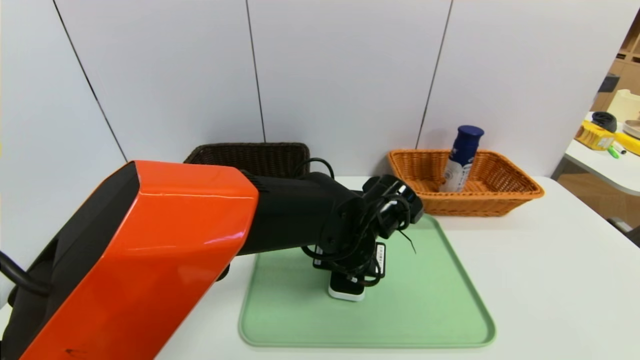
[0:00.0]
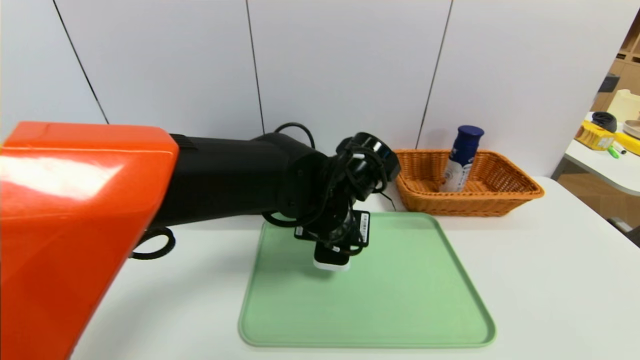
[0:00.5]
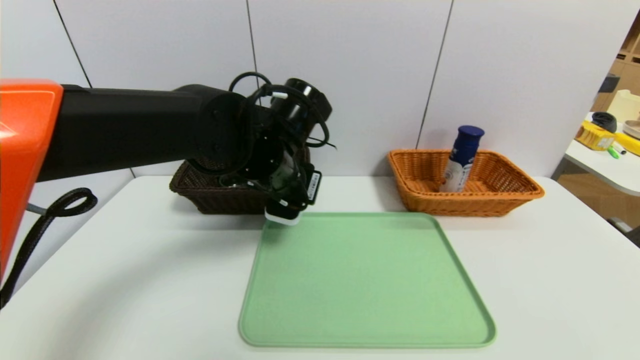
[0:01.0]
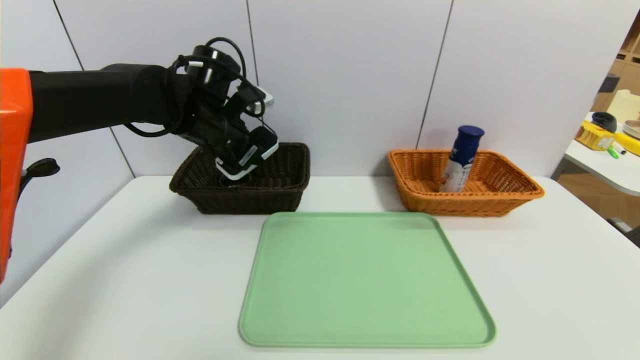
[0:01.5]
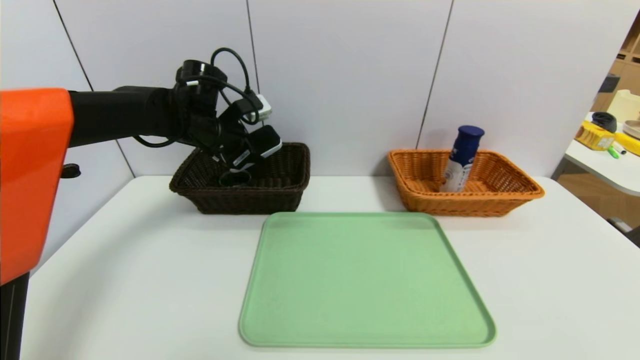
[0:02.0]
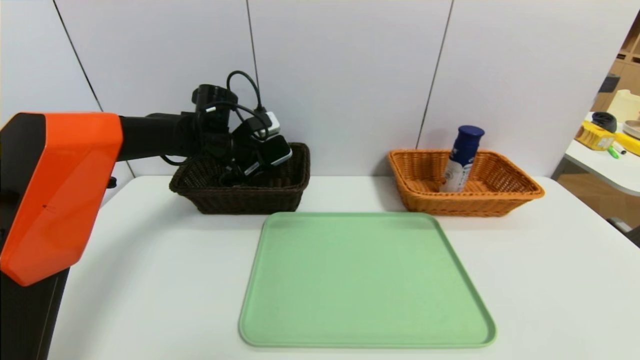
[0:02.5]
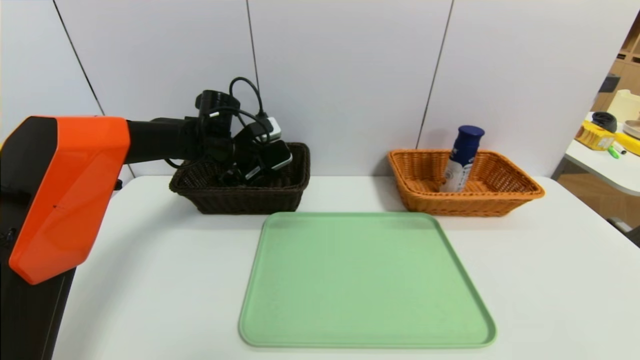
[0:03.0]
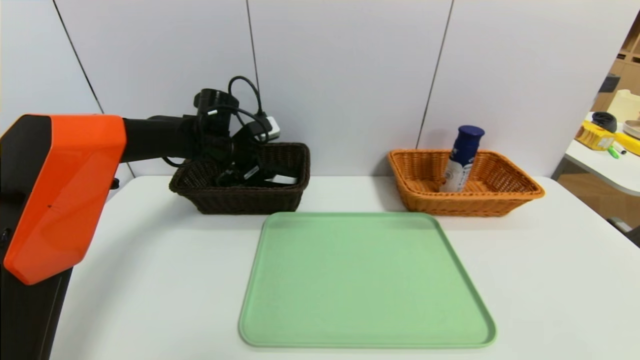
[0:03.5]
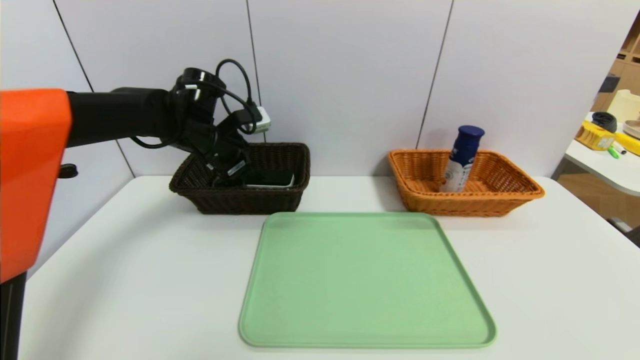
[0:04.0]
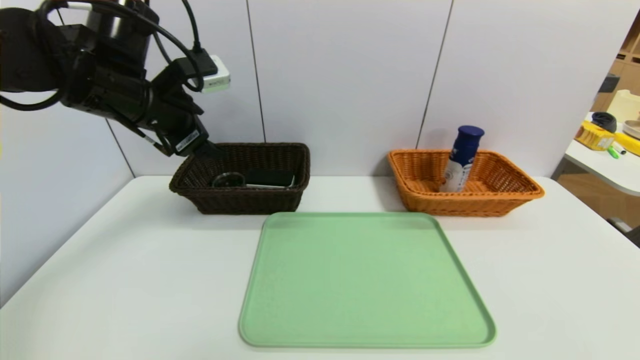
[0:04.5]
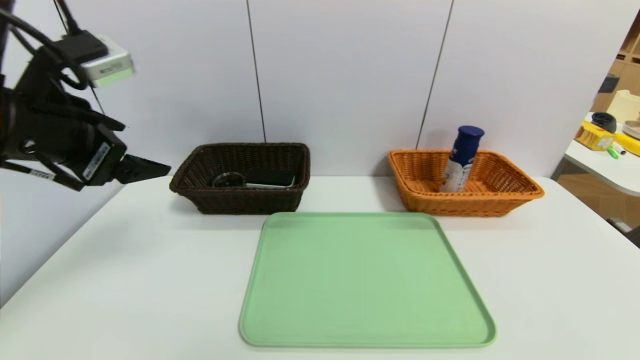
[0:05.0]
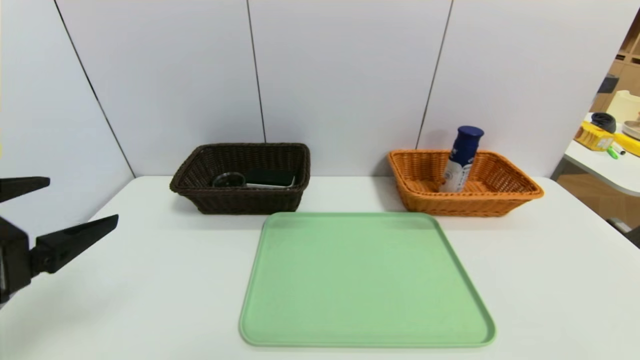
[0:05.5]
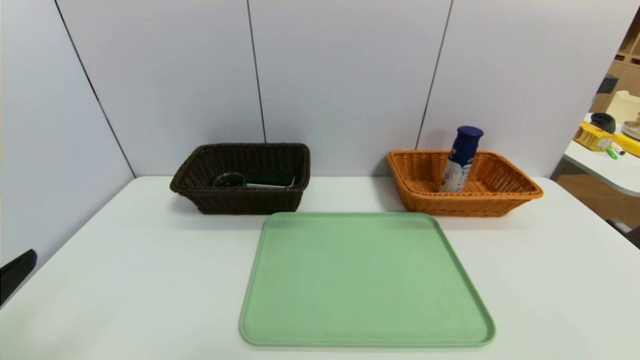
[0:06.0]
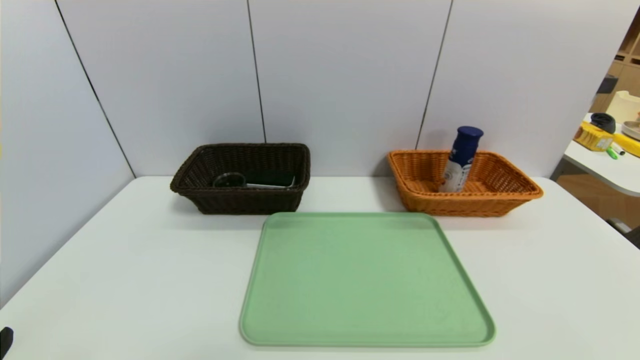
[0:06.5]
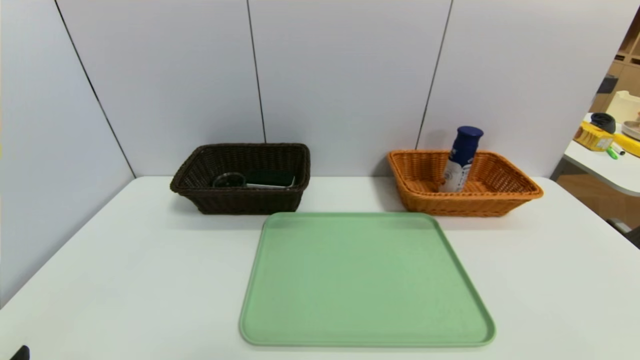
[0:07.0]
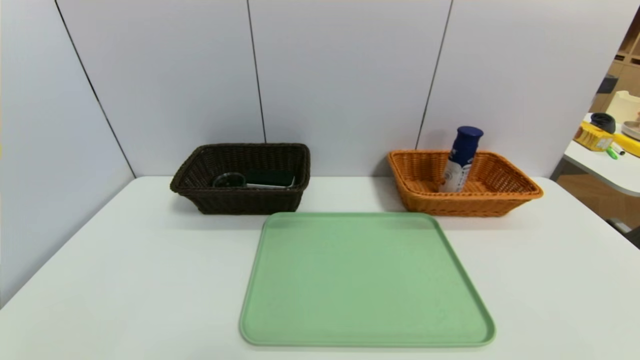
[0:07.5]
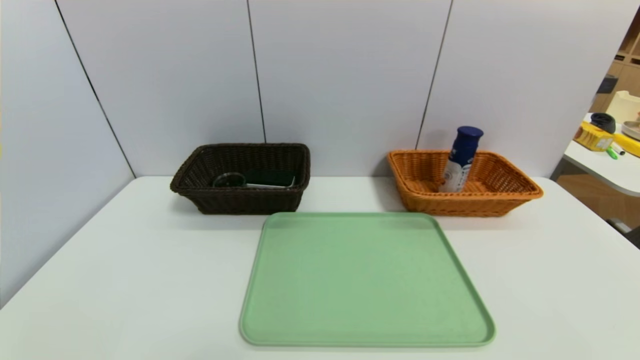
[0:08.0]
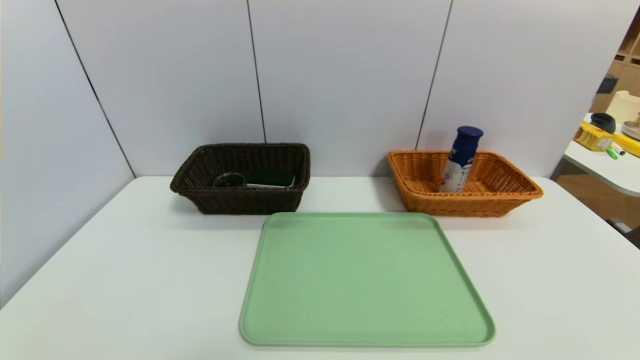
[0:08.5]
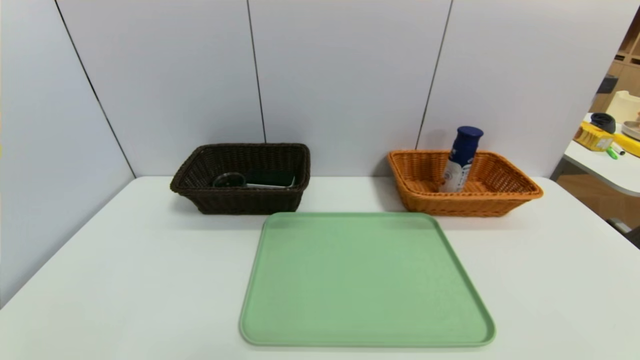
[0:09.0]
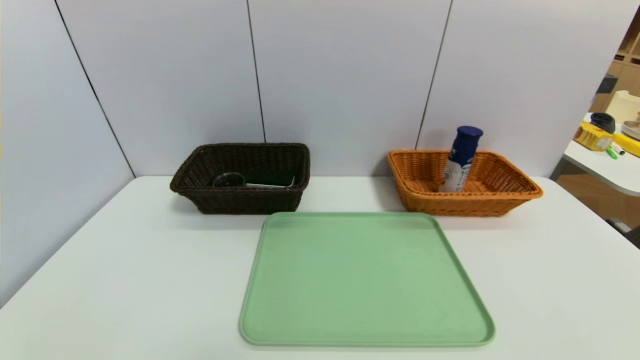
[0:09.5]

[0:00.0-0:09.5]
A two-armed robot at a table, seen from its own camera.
Task of the whole recording: place the food in the right basket with the right gripper, and place the non food items in the left basket with the left gripper.
Step, 0:00.0 to 0:03.5: Grasp the white eraser and put it in the left basket.
0:00.0 to 0:02.0: The left gripper is displaced to the left, forward and upward by some 30 cm.
0:02.0 to 0:04.0: The left gripper opens up.
0:04.0 to 0:05.5: The left gripper heads backward, covering some 30 cm.
0:05.5 to 0:07.5: The left gripper shifts approximately 20 cm downward and backward.

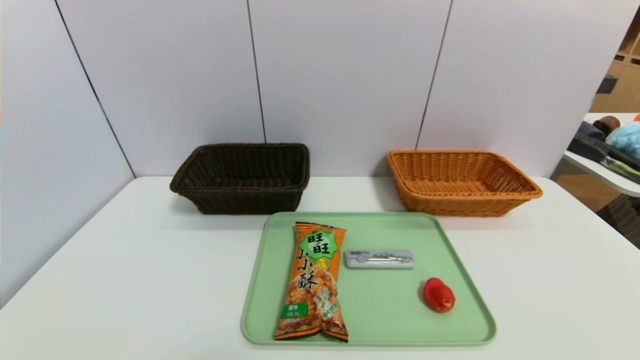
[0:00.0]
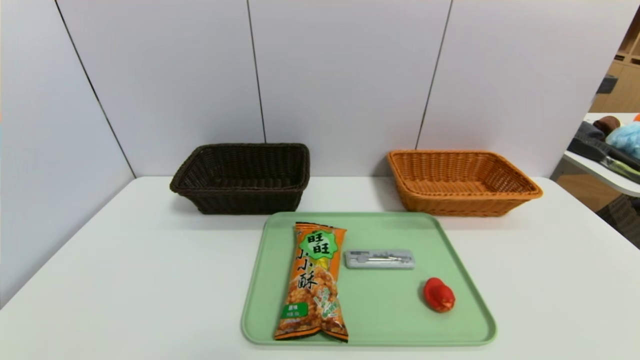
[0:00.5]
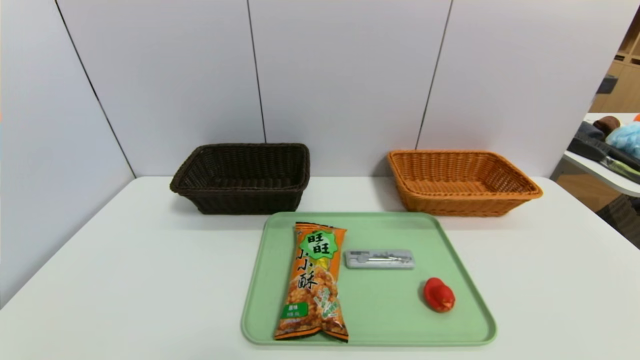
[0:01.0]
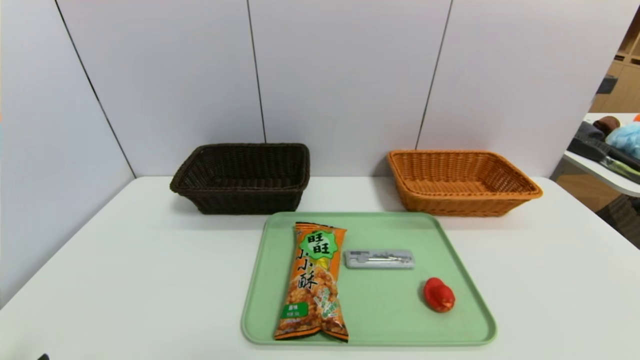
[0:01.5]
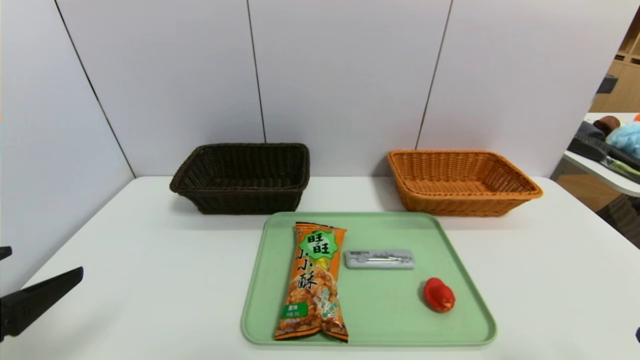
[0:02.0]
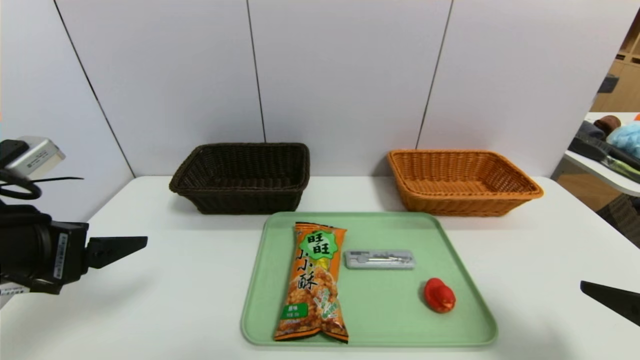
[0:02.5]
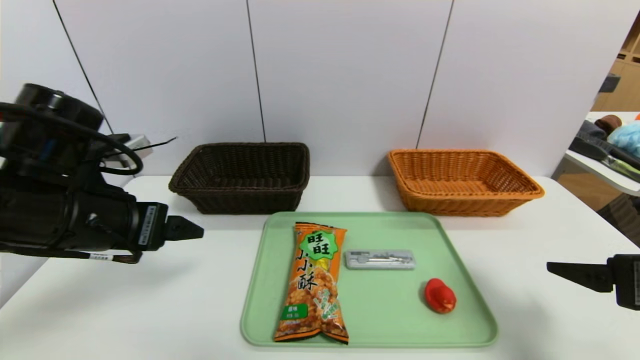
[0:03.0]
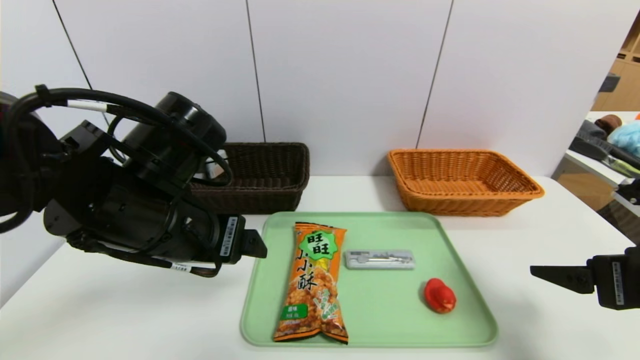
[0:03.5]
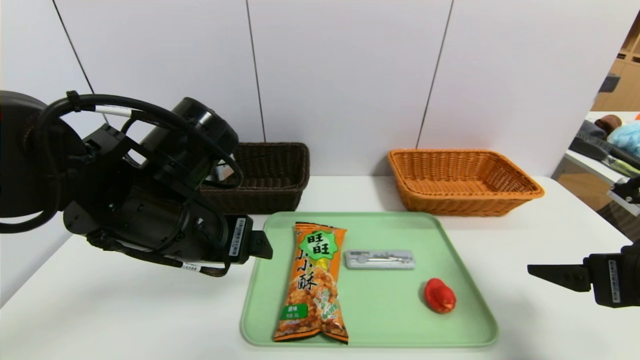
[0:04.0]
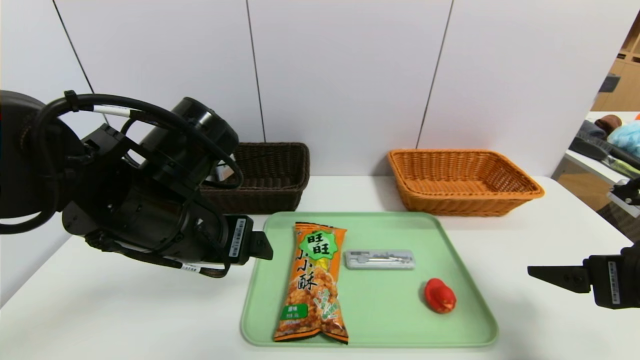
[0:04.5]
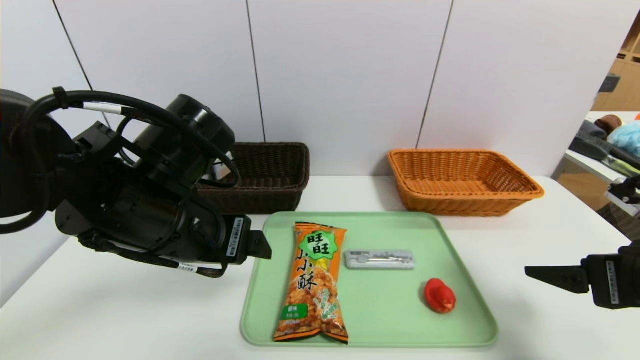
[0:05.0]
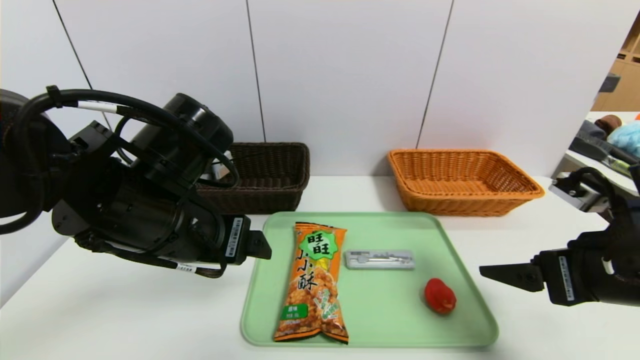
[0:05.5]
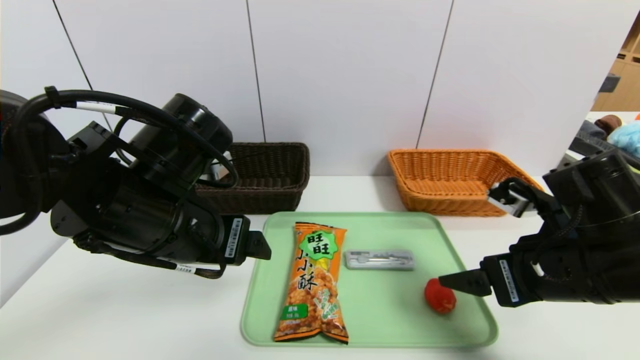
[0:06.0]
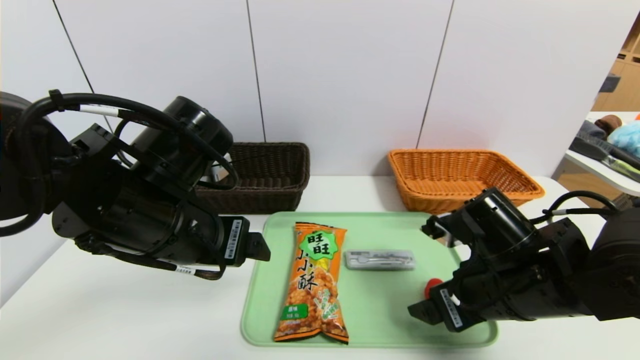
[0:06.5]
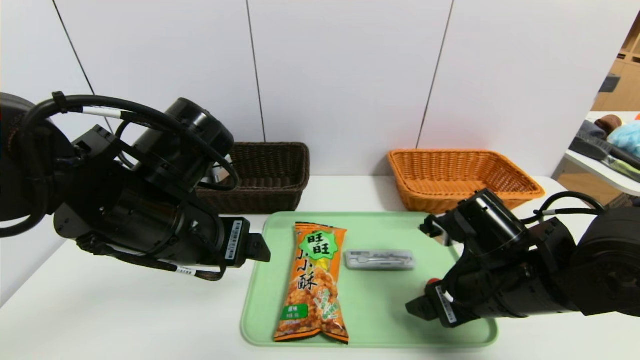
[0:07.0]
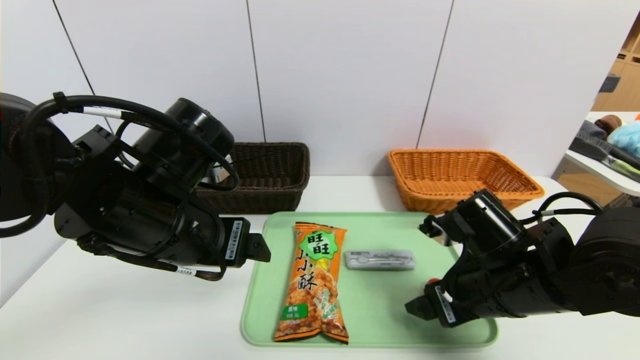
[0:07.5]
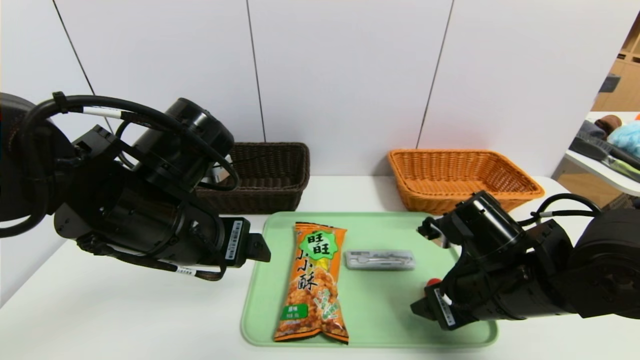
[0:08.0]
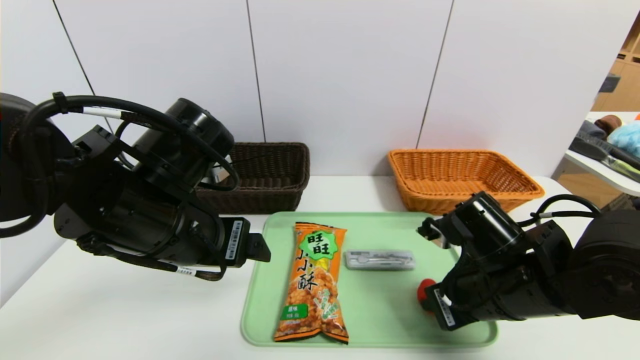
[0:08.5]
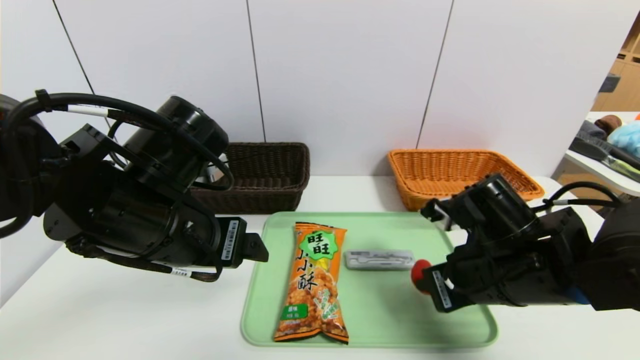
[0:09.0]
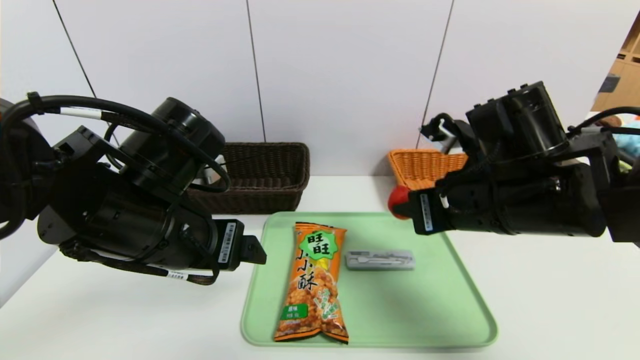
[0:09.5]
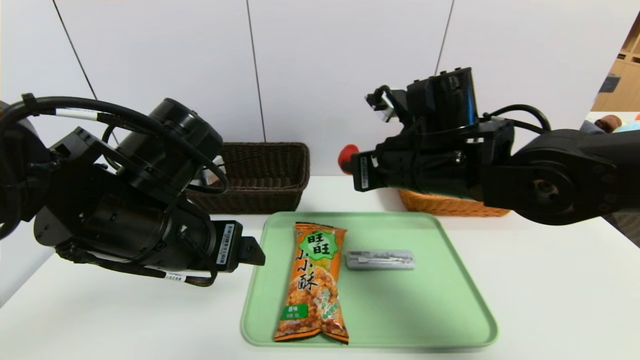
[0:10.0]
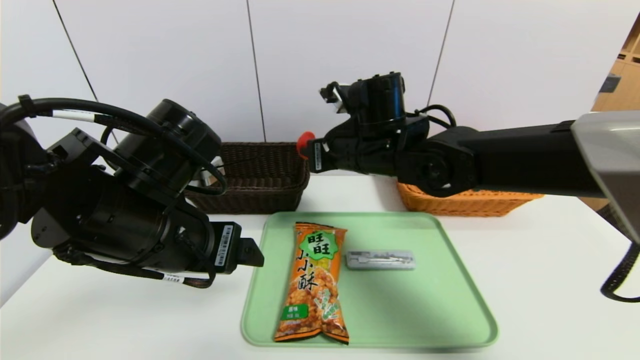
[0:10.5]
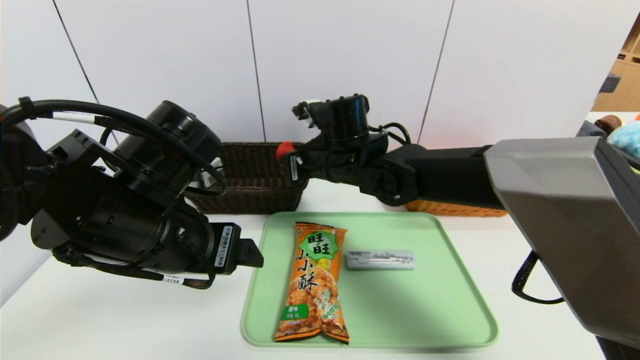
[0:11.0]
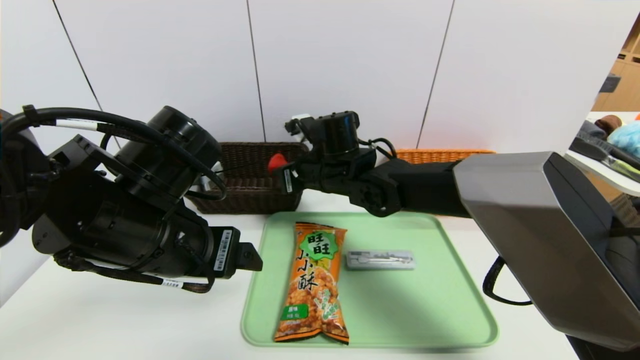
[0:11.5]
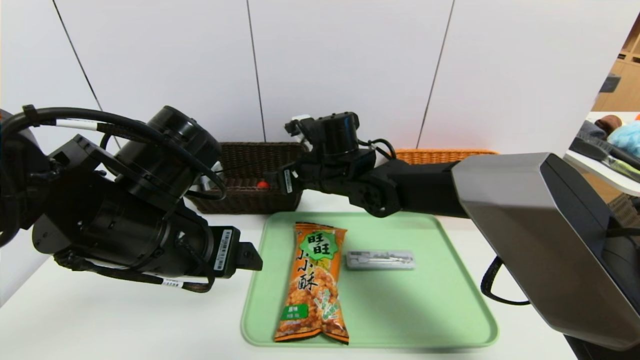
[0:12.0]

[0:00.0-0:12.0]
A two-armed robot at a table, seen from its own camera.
Task of the whole recording: place the food in the right basket with the right gripper, and place the non food items in the left basket with the left gripper.
0:00.0 to 0:02.0: The left gripper heads upward and forward, covering roughly 20 cm.
0:02.0 to 0:04.0: The left gripper travels to the right and forward by roughly 20 cm, while the right gripper is displaced forward by some 15 cm.
0:04.0 to 0:06.0: The right gripper moves to the left, some 10 cm.
0:06.0 to 0:08.0: The right gripper goes about 5 cm to the left and downward.
0:08.0 to 0:10.0: The right gripper heads upward, forward and to the left, covering about 15 cm, and closes.
0:10.0 to 0:12.0: The right gripper shifts some 15 cm to the left, forward and downward, and opens.
